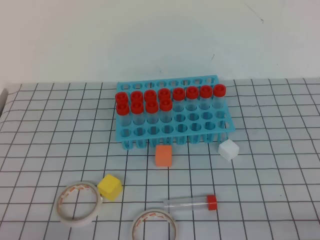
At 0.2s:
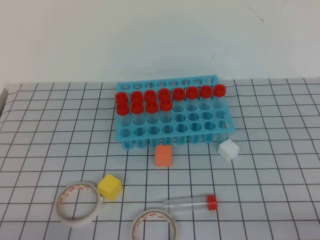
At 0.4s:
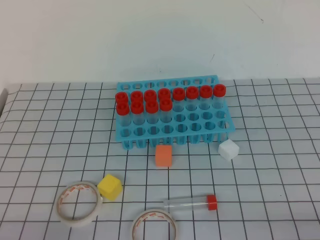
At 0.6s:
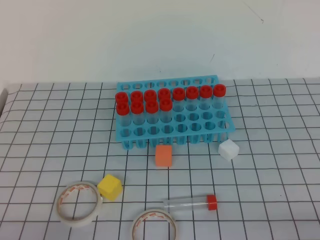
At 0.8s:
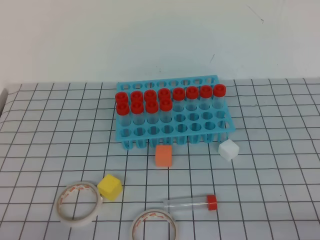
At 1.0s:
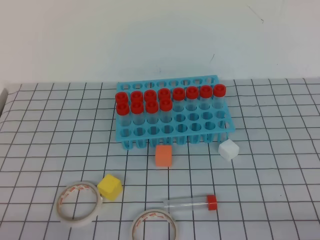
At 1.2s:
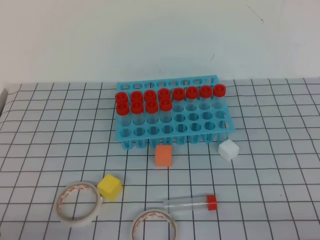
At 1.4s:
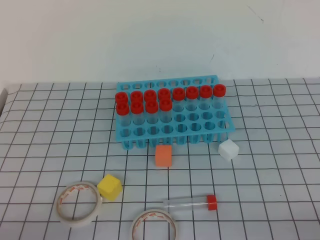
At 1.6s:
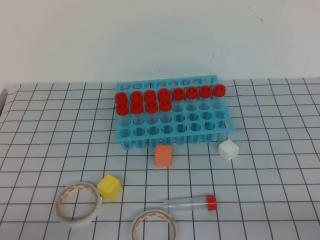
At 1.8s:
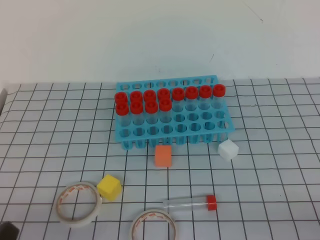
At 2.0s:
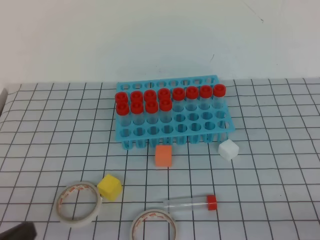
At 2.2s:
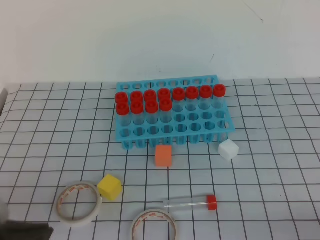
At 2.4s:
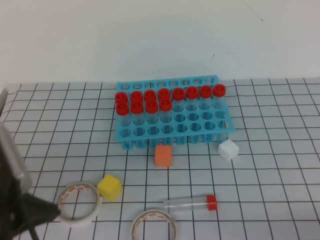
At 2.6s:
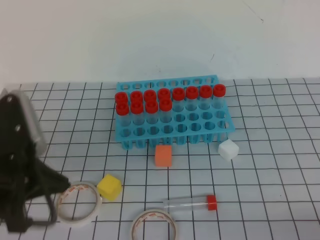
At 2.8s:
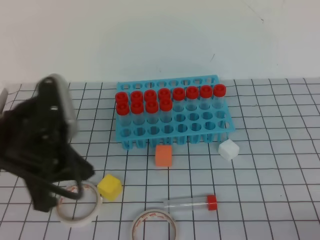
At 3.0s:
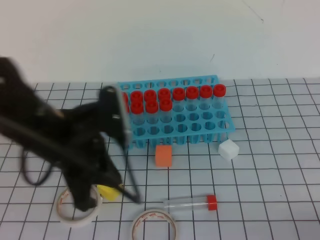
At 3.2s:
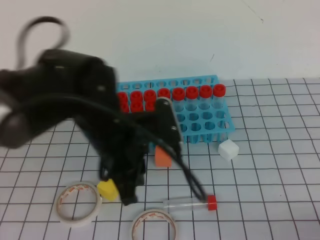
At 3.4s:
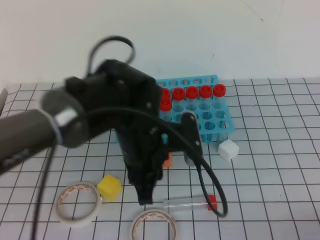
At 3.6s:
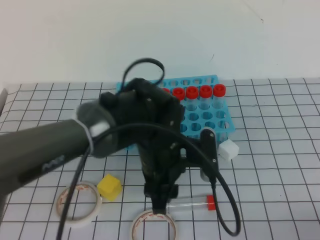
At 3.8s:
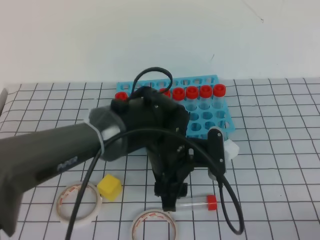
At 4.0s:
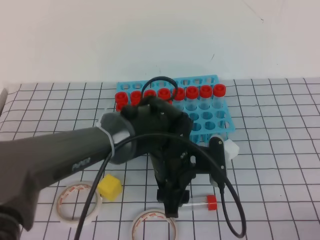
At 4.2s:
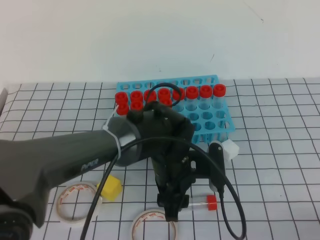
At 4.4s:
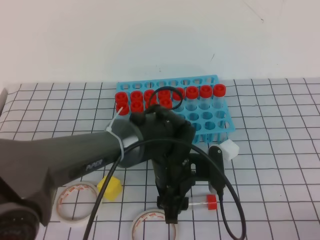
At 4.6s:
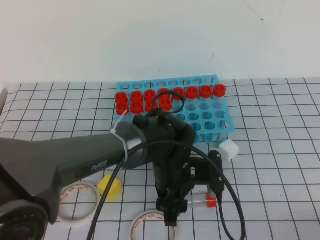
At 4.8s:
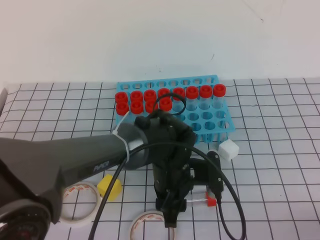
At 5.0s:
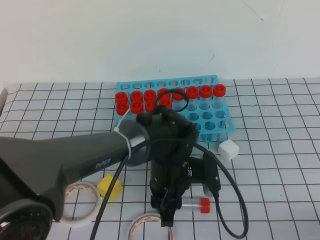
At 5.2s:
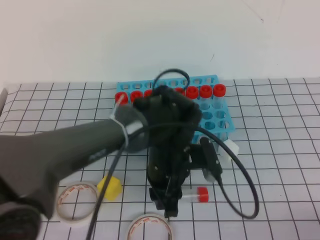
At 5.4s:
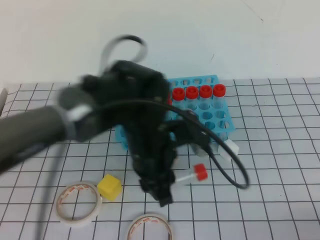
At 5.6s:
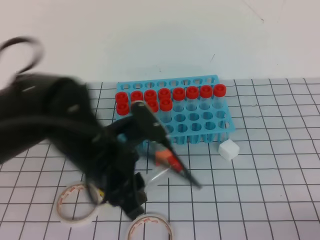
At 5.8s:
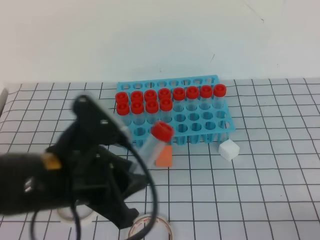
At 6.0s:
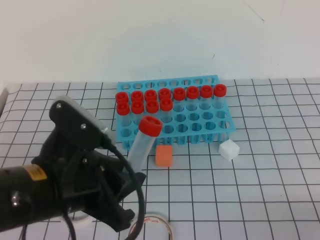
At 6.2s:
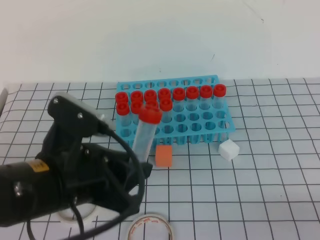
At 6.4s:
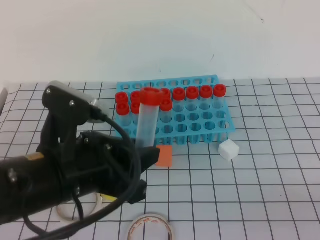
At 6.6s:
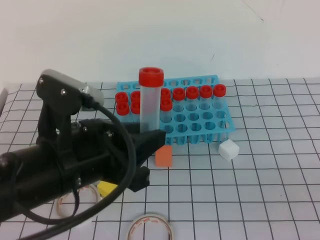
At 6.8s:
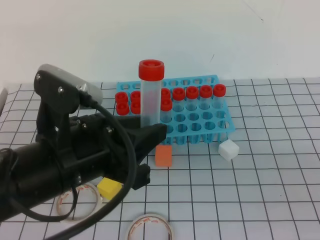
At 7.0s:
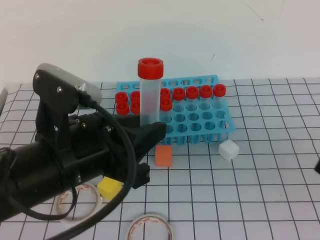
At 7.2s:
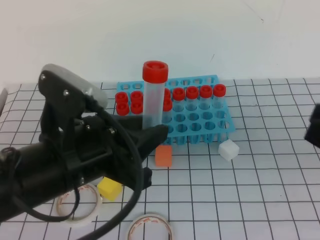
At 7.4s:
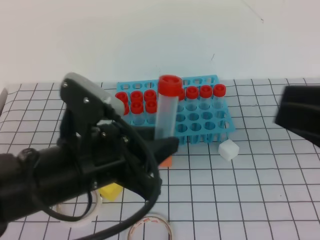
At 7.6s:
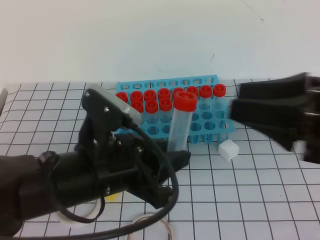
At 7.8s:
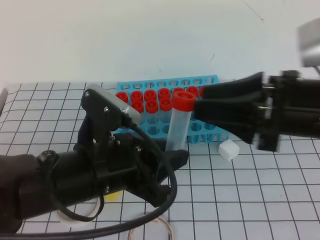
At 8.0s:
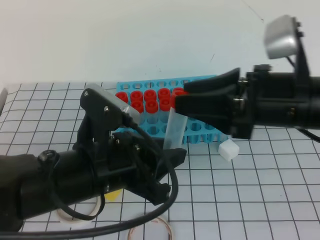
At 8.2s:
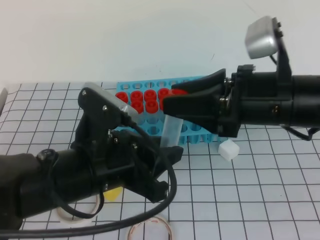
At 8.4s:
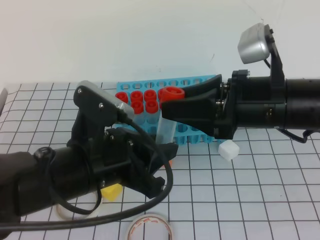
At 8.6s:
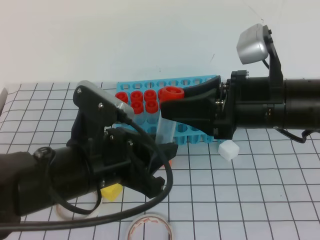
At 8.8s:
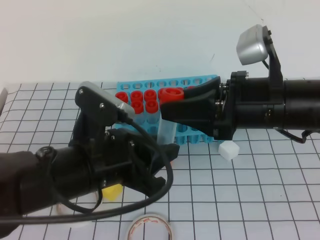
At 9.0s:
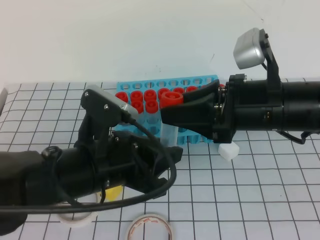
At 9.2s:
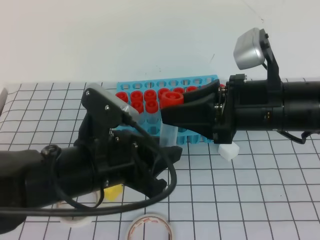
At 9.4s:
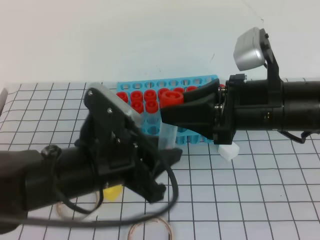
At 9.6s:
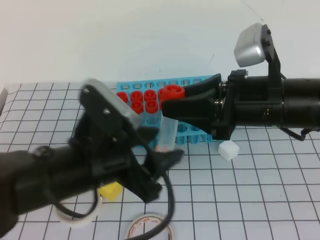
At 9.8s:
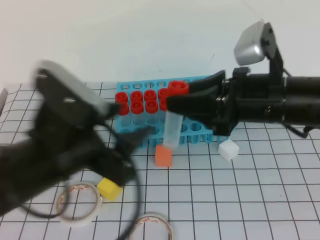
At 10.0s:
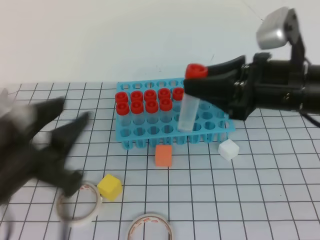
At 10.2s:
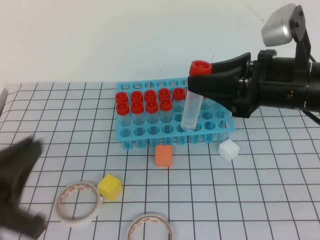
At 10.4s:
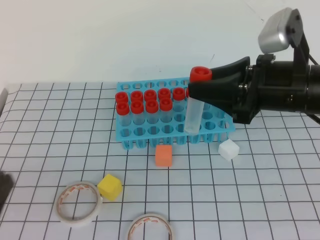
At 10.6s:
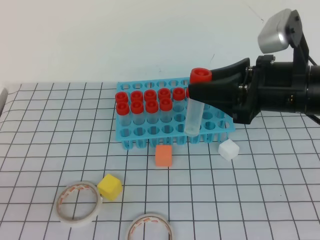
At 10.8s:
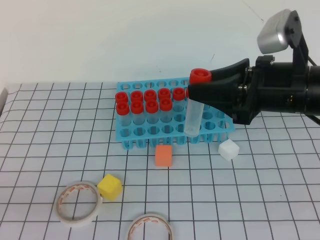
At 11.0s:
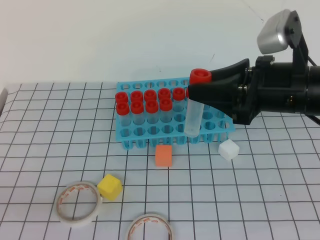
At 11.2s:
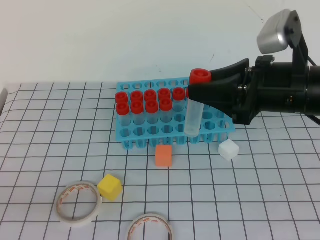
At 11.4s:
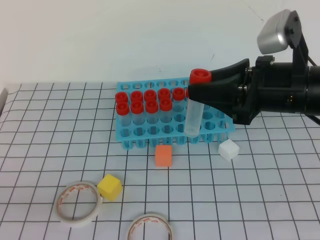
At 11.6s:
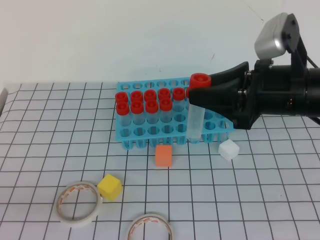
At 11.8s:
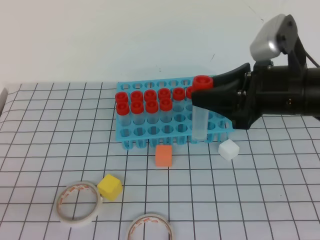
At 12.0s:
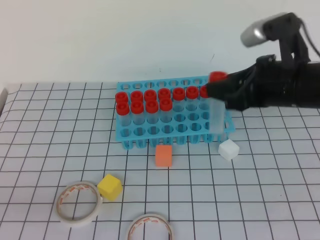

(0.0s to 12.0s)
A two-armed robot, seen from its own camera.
1.6s - 3.0s: The left gripper is displaced forward, upward and to the right by some 25 cm.
3.0s - 4.4s: The left gripper is displaced to the right and downward by about 20 cm, and opens.
4.4s - 6.0s: The left gripper travels to the left, upward and backward by approximately 20 cm, and closes up.
6.0s - 7.6s: The right gripper travels forward, upward and to the left by approximately 25 cm, and opens up.
7.6s - 9.0s: The right gripper shifts about 10 cm to the left and forward.
9.0s - 10.4s: The left gripper is displaced to the left and backward by about 20 cm, and closes its fingers.
10.4s - 12.0s: The left gripper changes place by approximately 5 cm.

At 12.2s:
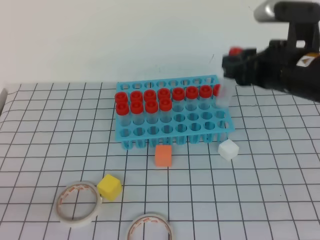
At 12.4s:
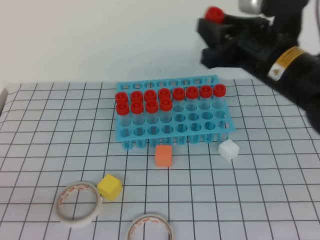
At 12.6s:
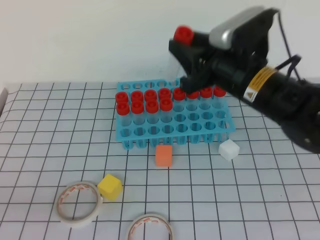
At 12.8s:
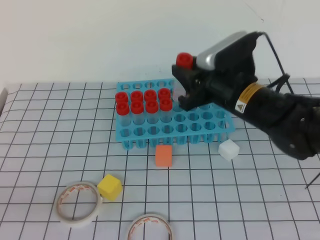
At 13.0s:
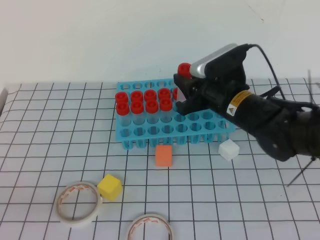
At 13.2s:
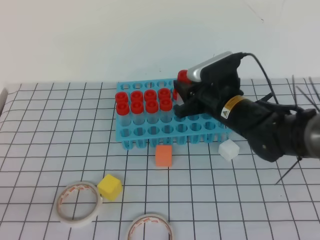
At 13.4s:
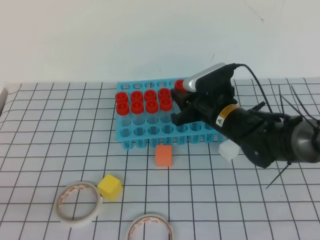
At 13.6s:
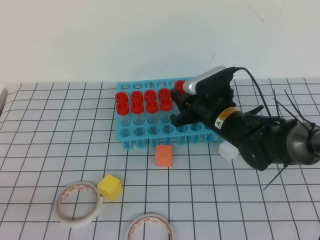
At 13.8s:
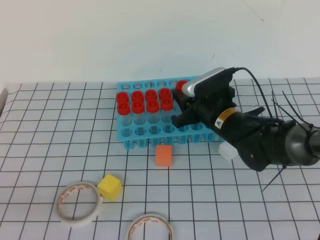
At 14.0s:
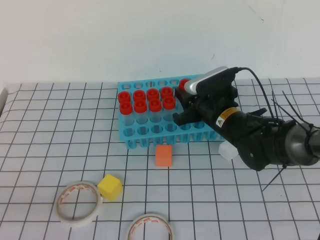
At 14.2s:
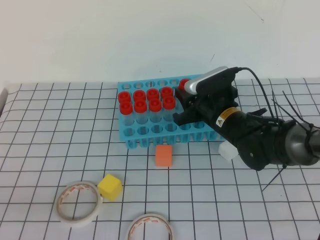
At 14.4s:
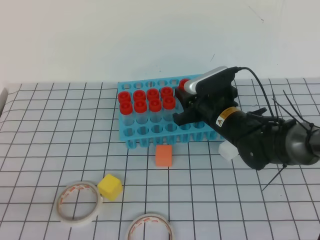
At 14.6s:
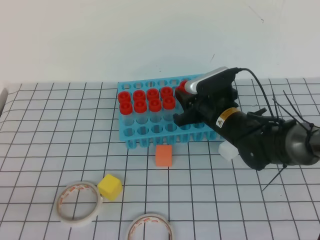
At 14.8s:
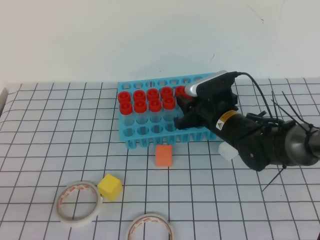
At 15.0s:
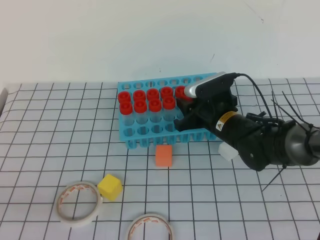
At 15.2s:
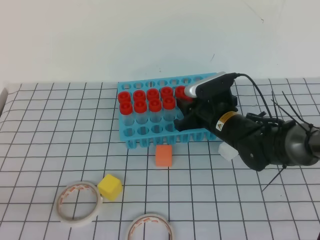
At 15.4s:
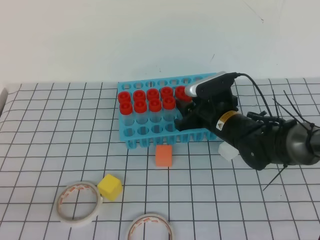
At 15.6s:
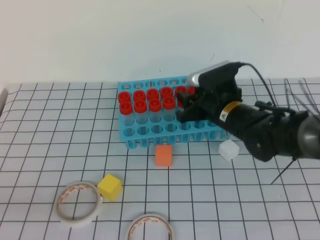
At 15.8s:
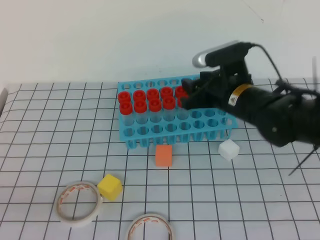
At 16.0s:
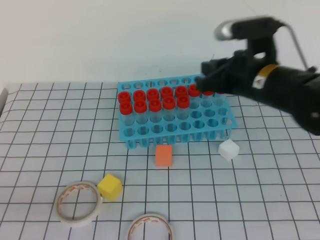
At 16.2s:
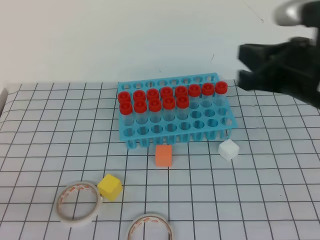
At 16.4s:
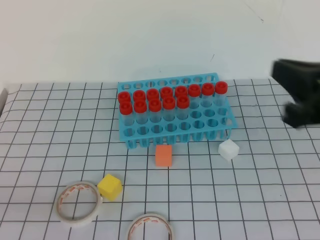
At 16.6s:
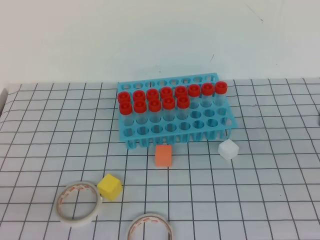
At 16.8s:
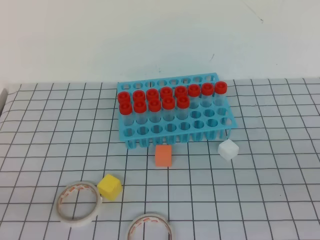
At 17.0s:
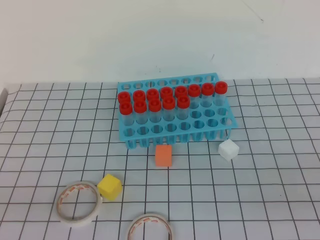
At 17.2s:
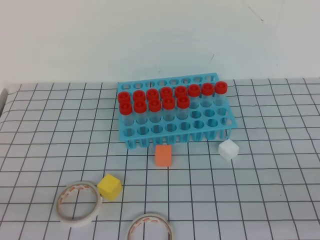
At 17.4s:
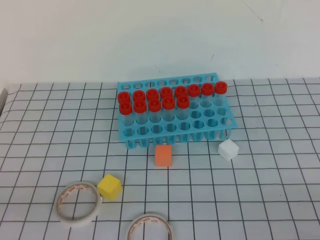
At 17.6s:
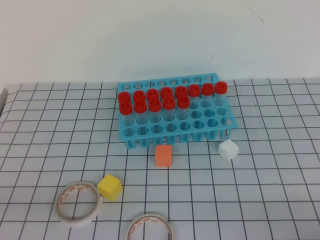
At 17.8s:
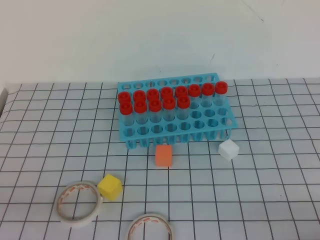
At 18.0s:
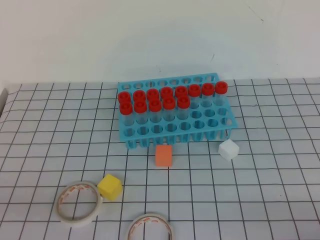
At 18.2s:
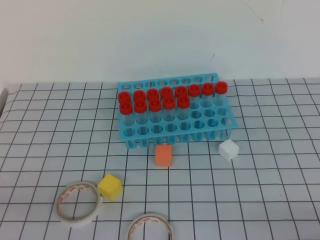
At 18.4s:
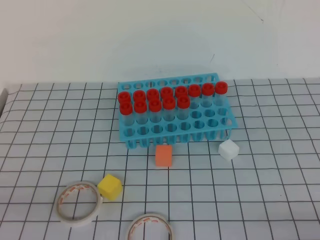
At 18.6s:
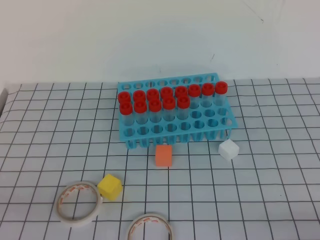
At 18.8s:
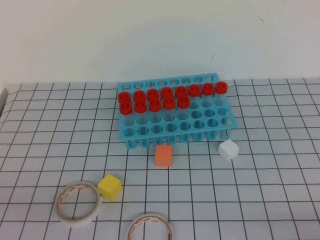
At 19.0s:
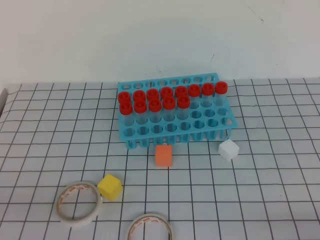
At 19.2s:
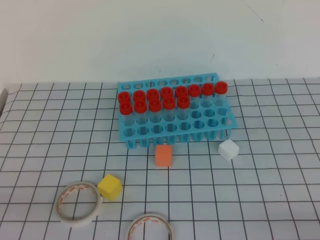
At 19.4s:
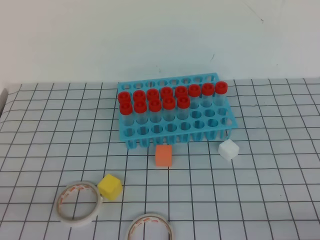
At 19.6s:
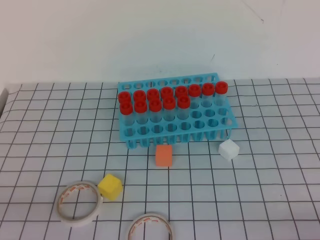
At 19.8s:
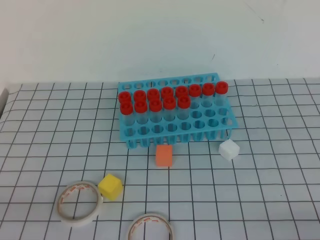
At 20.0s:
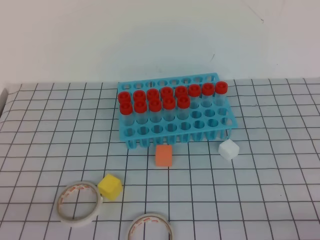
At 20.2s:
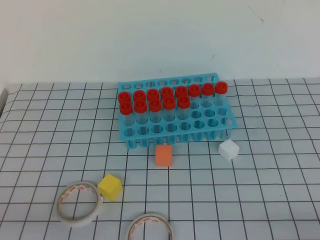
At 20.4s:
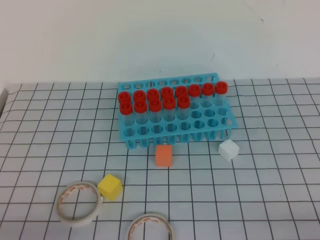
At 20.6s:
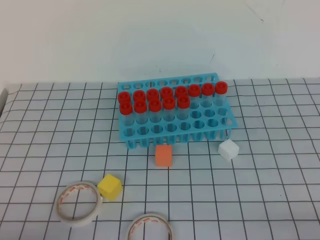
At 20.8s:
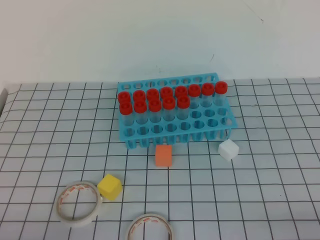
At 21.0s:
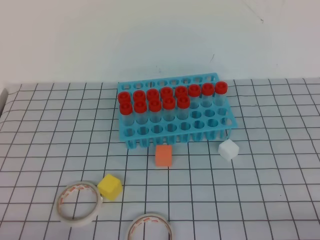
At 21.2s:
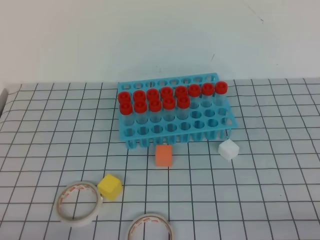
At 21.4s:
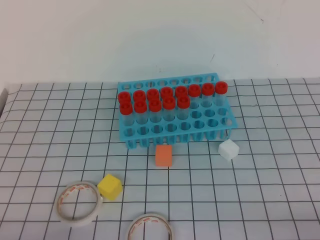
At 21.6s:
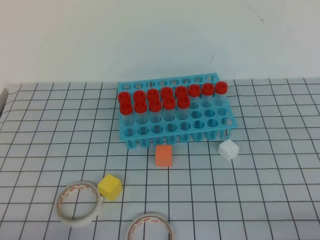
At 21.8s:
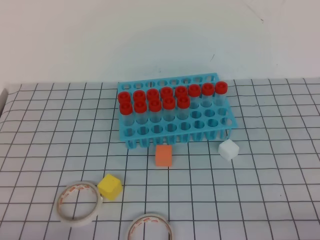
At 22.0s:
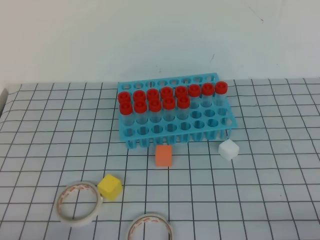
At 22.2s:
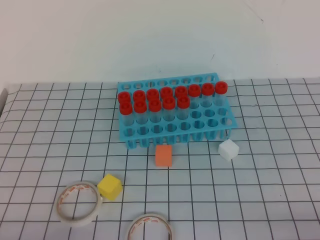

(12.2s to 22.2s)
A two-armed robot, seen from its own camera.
12.2s - 13.6s: The right gripper travels downward, to the left and forward by roughly 20 cm.
13.6s - 15.0s: The grippers move only a little.
15.0s - 16.4s: The right gripper travels upward, backward and to the right by roughly 30 cm, and closes up.
16.4s - 18.0s: The right gripper moves downward, backward and to the right, about 25 cm.
